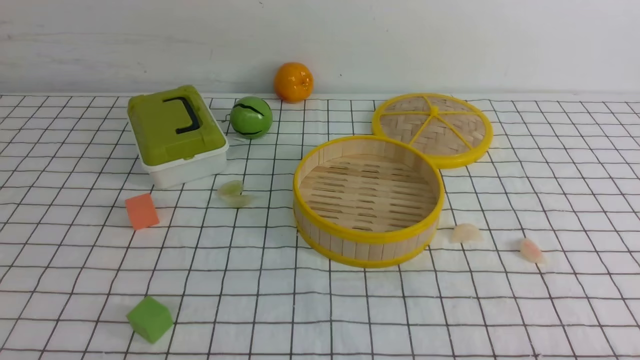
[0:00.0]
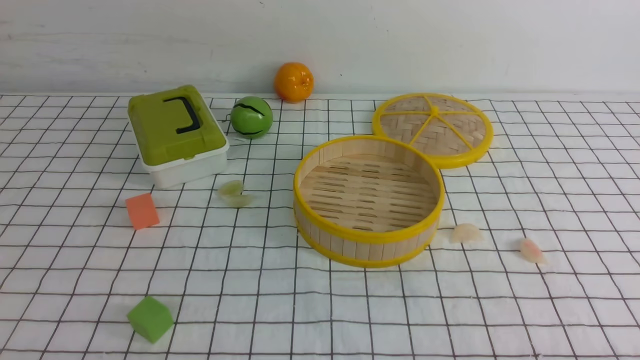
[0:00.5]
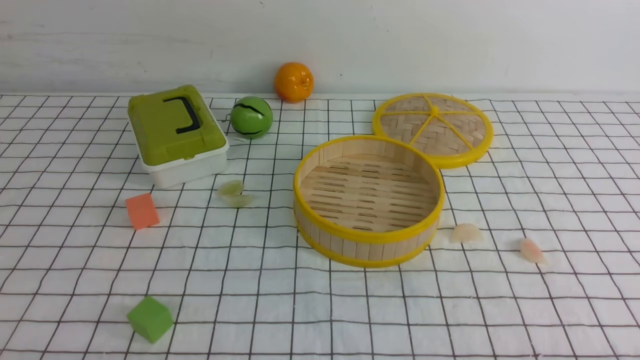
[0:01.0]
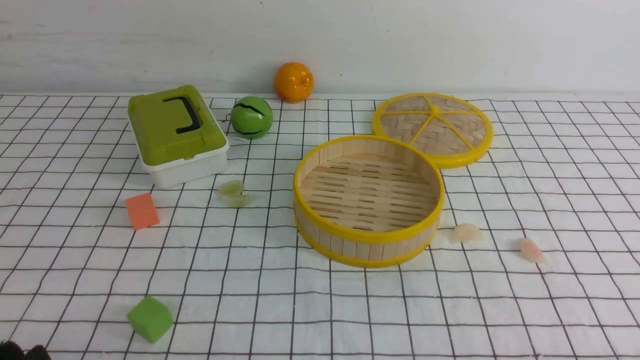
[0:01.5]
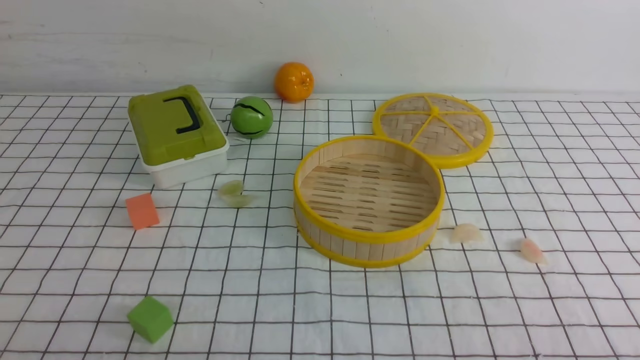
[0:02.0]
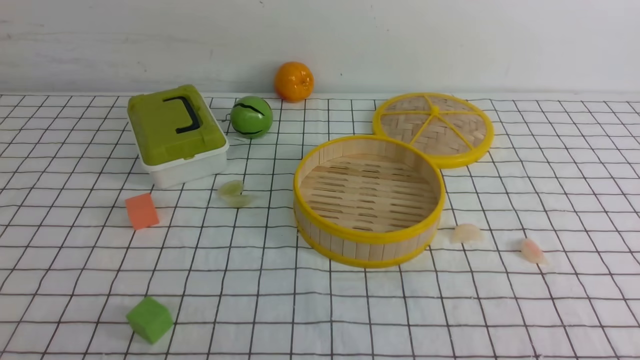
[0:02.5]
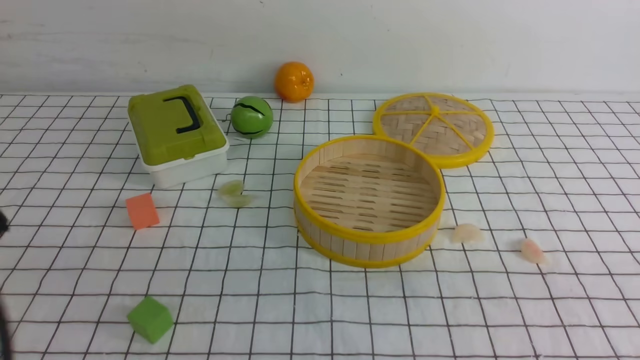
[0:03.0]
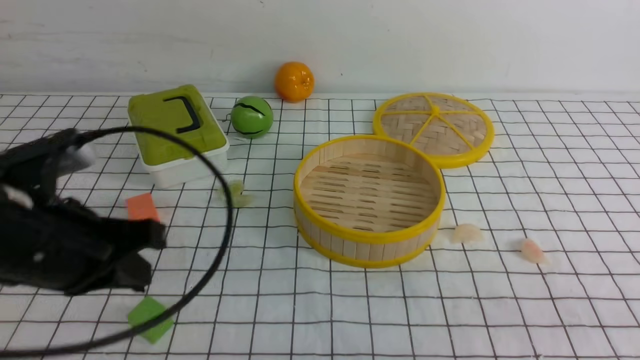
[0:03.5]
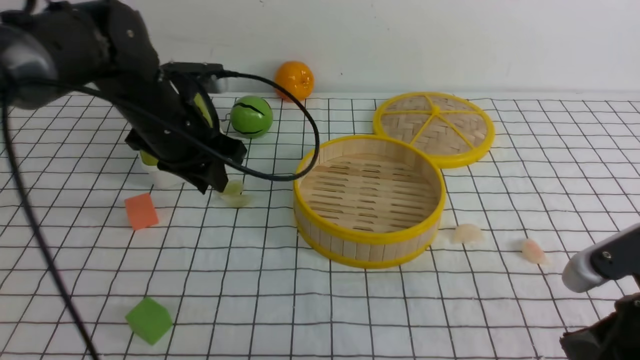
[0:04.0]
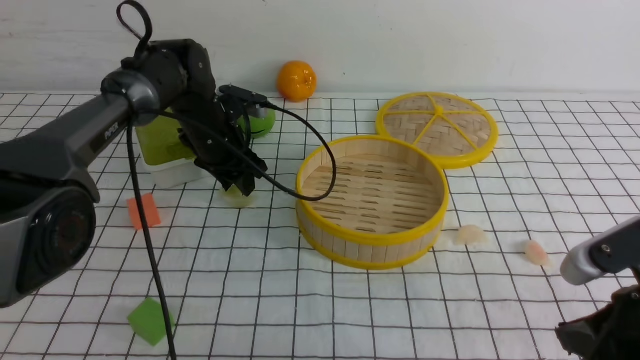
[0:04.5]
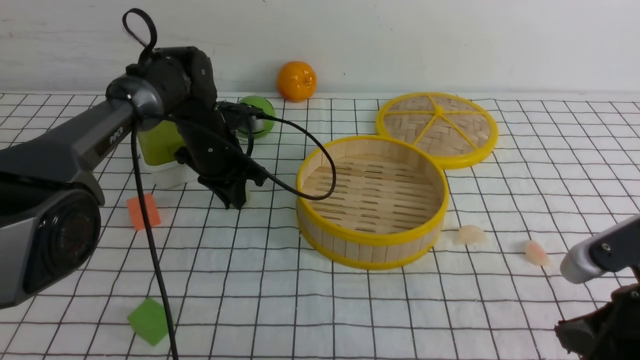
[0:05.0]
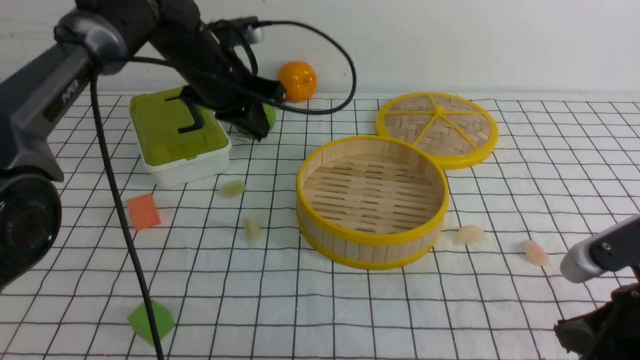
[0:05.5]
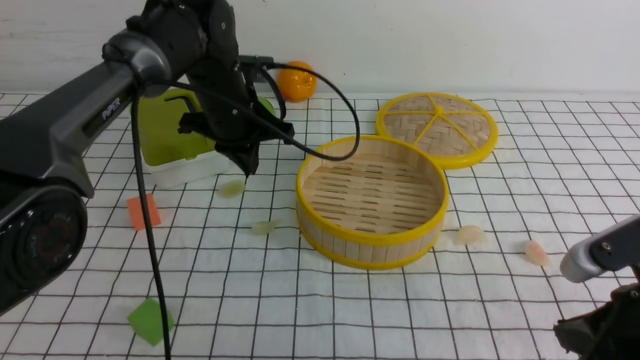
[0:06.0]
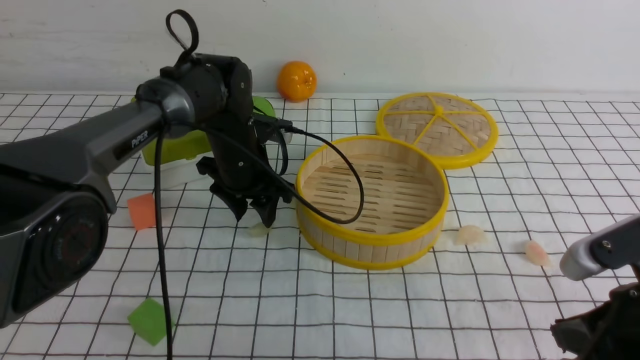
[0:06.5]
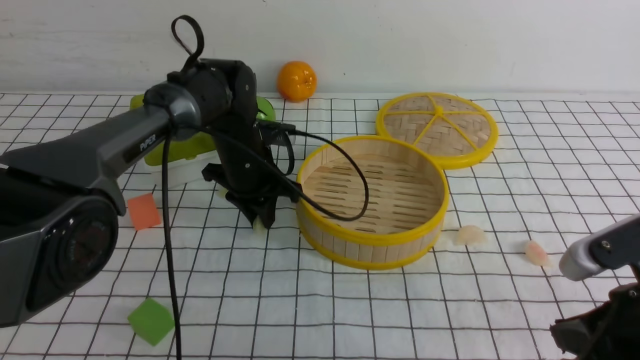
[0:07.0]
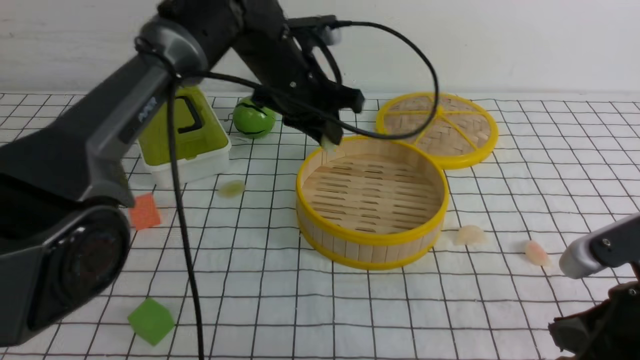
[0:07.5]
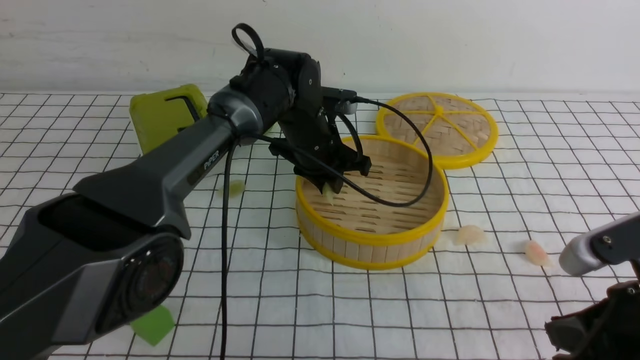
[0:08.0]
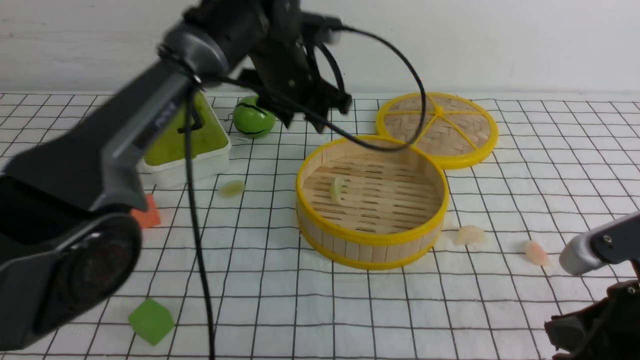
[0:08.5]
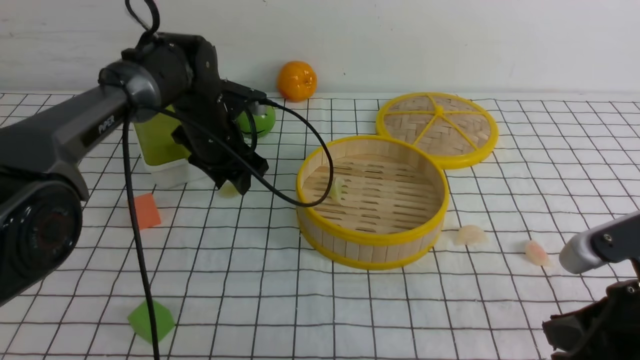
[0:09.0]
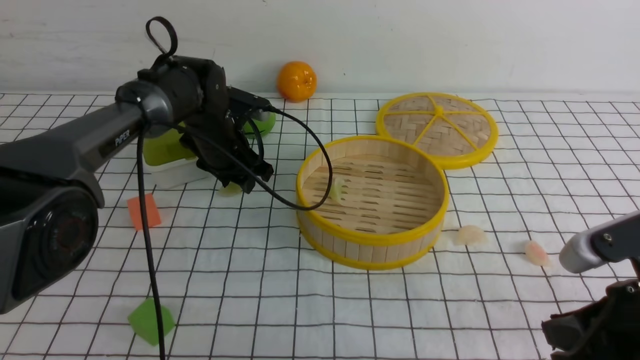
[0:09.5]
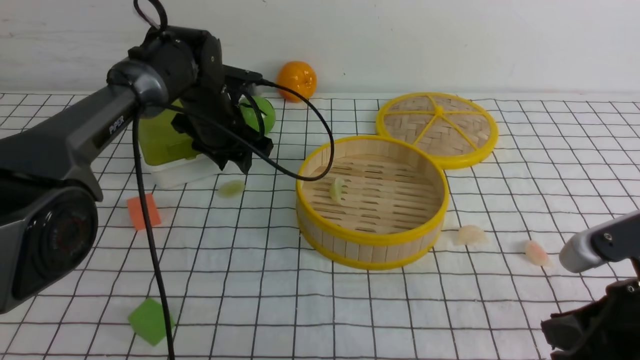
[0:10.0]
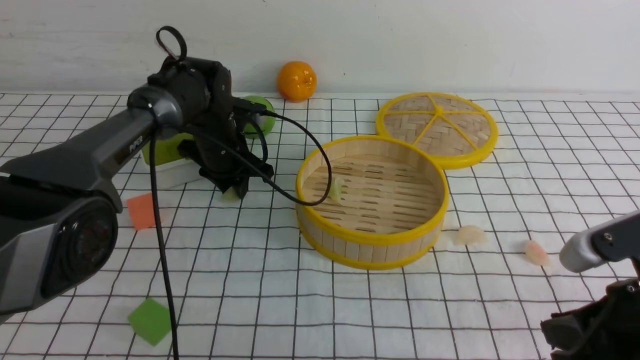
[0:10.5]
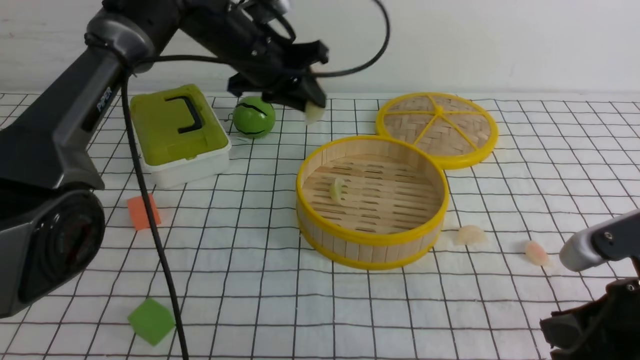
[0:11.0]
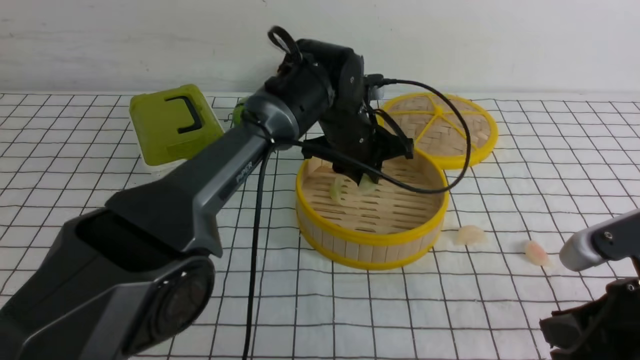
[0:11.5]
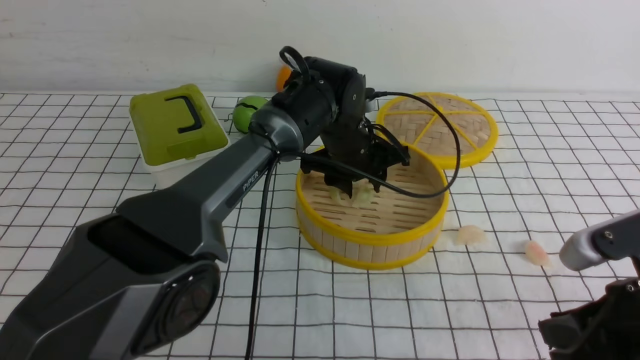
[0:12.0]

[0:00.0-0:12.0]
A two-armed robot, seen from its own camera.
Task of the whole recording: put the dumplings into the steamer on the table with the white tablecloth.
Step, 0.0 to 7.0 s: use the left arm to grab a dumpling.
Step, 7.5 to 8.5 s: use the left arm to put the dumpling into the steamer.
Step, 9.0 to 10.5 s: use the left arm to grab a dumpling.
0.0 to 2.0 s: The left gripper moves upward, some 5 cm.
2.0 to 4.0 s: The left gripper shifts some 35 cm forward, and closes and opens again. Meanwhile the right gripper moves forward, approximately 10 cm.
4.0 to 6.0 s: The left gripper shifts approximately 5 cm to the right, and moves some 10 cm downward and comes back.
6.0 to 8.0 s: The left gripper swings up and down, some 10 cm each way, with 2 reversals, and opens its fingers.
8.0 to 10.0 s: The left gripper is displaced to the left by about 10 cm.
10.0 to 12.0 s: The left gripper heads to the right, covering roughly 15 cm, and closes and opens again.

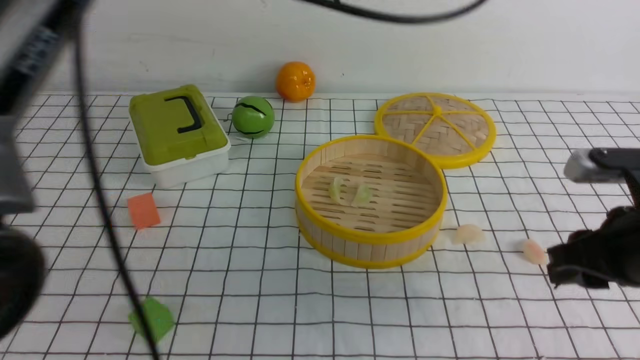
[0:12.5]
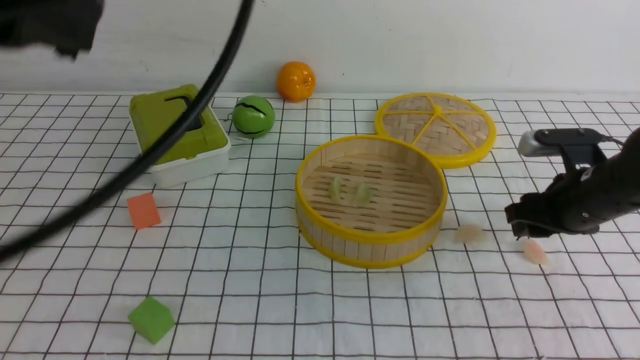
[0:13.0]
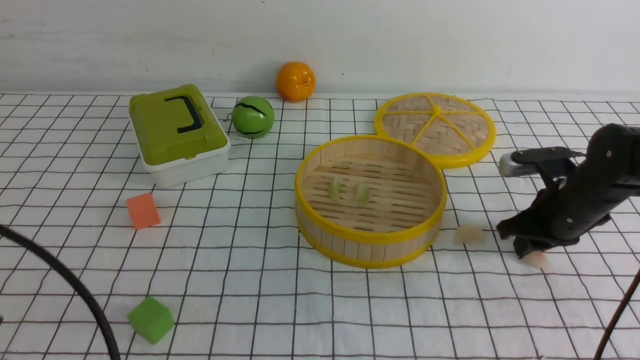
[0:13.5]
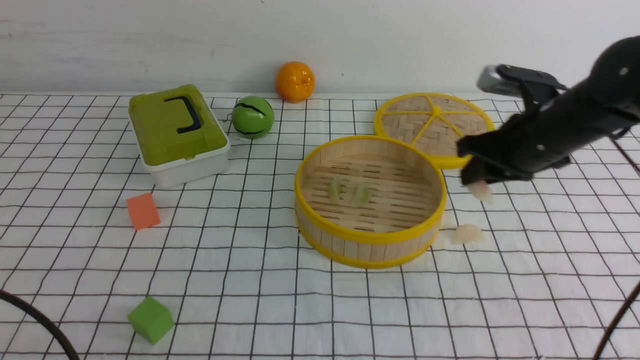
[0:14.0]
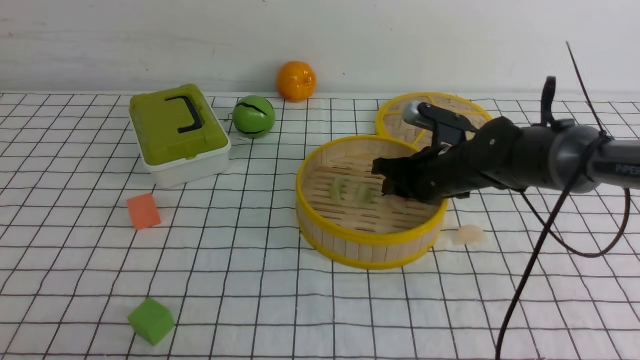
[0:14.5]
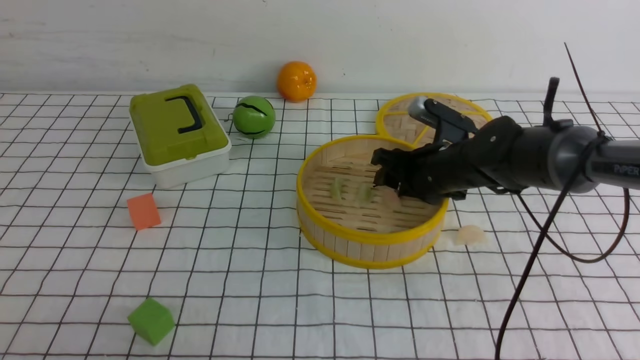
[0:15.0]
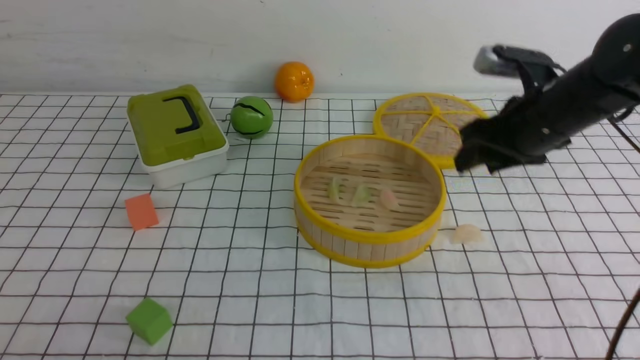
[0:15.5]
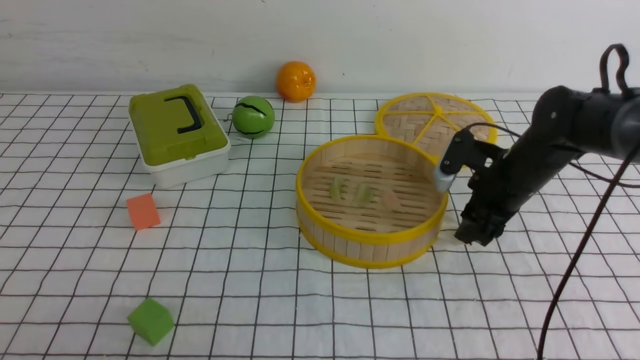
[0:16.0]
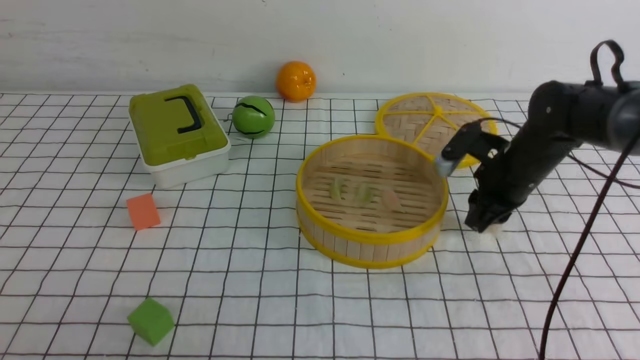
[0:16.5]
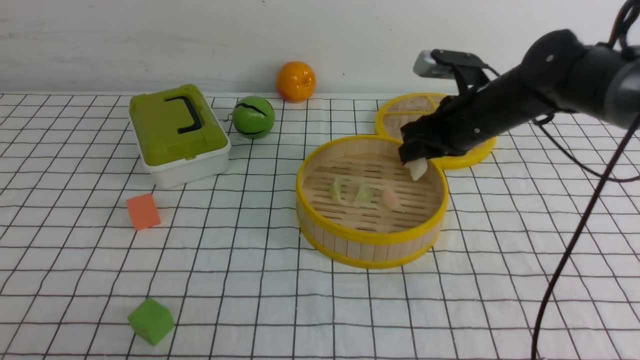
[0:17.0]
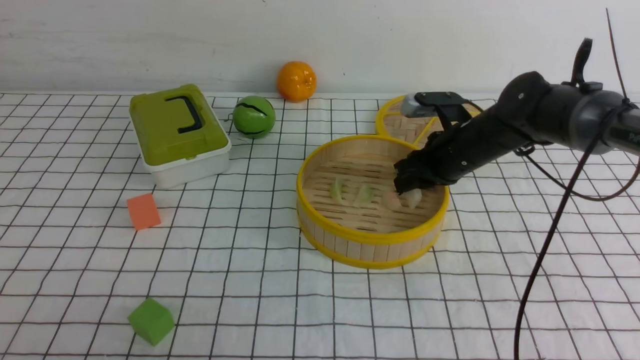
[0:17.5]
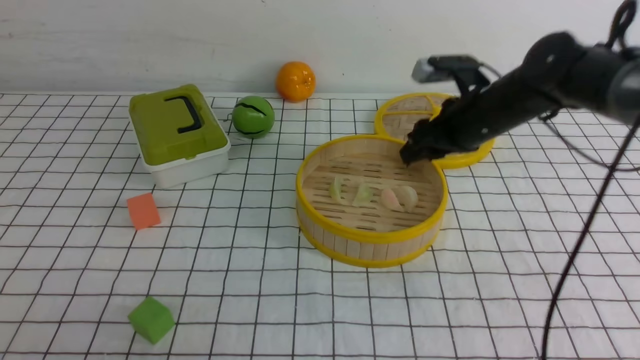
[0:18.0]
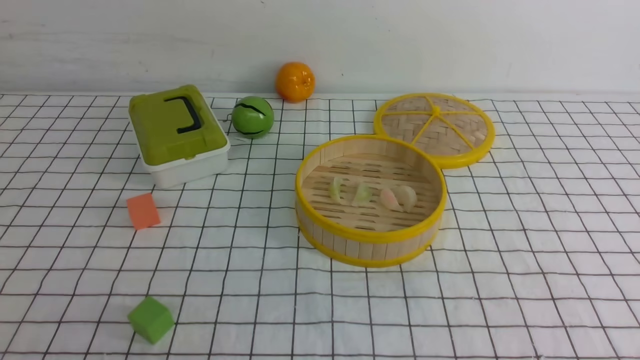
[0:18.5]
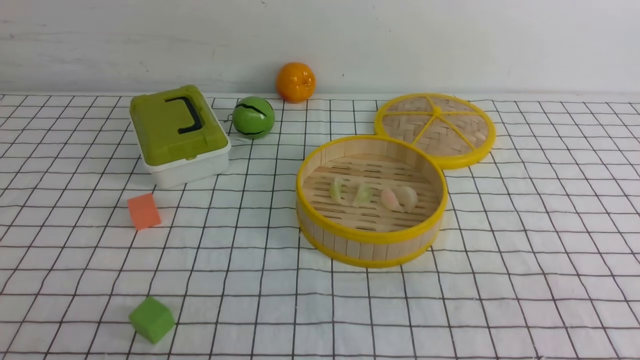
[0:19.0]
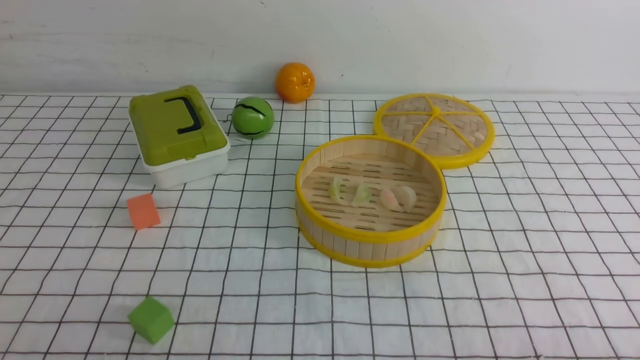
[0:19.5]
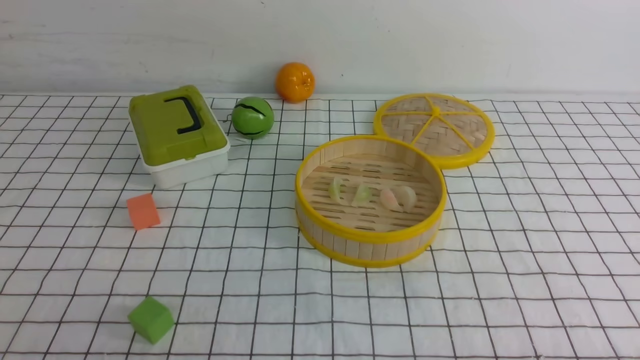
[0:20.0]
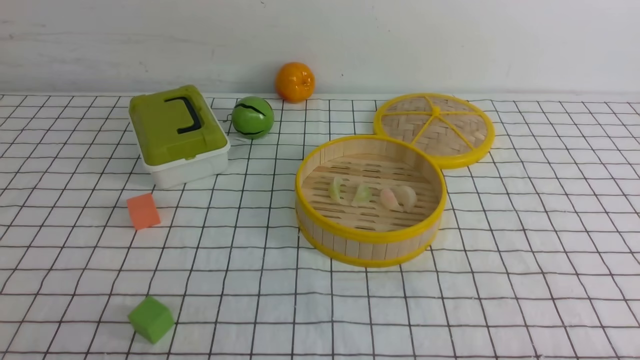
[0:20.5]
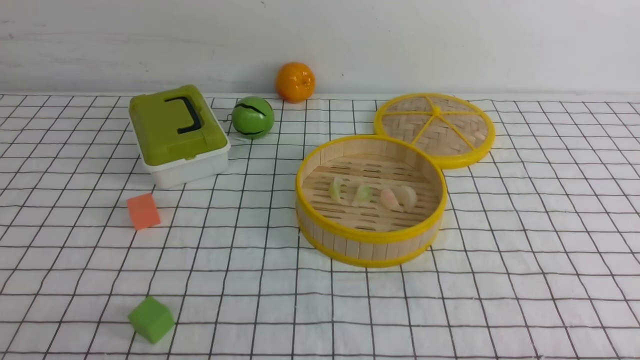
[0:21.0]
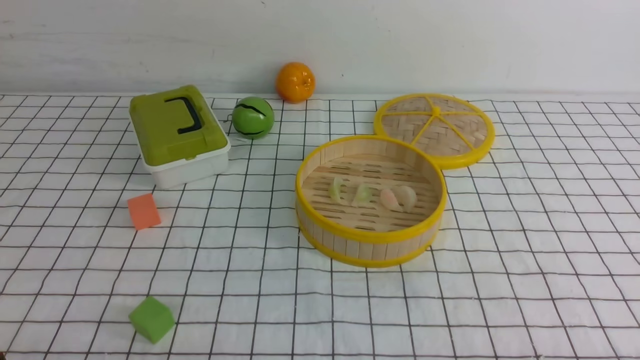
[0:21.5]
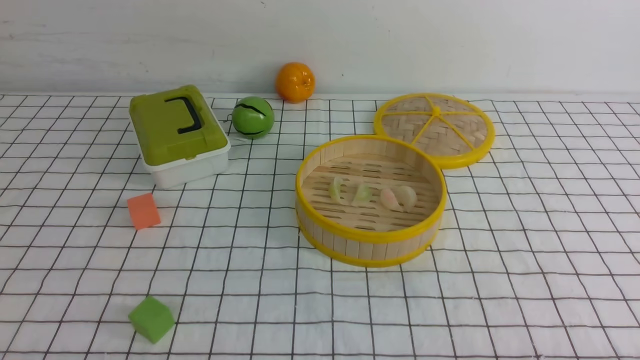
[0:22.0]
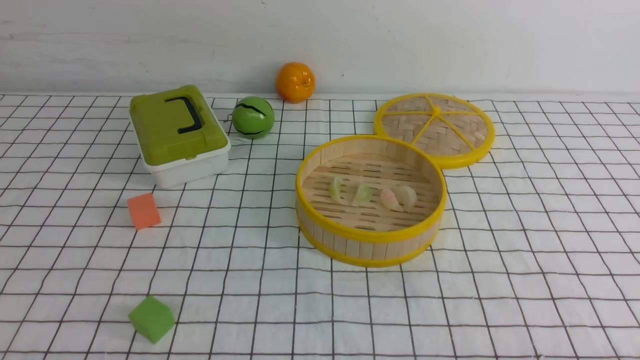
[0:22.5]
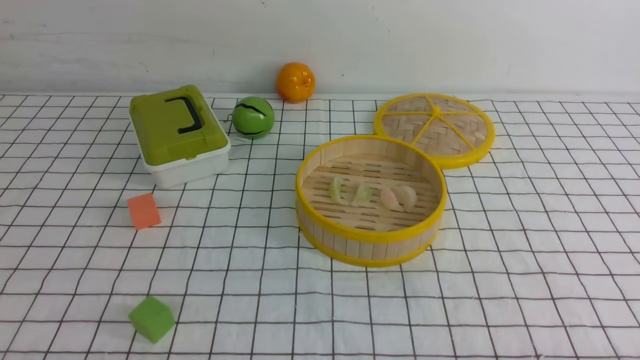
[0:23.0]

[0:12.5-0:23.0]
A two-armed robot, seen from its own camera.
Task of the whole recording: put the dumplings into the steamer on the table with the white tablecloth.
Step, 12.5 to 14.0 s: use the right arm to grab a dumpling.
Step, 14.5 to 15.0 s: use the right arm to put the dumpling into the steamer.
Step, 15.5 to 16.5 s: use the right arm to grab a dumpling.
Step, 17.0 to 18.0 s: use the right arm to put the dumpling into the steamer.
12.5 to 14.5 s: The left gripper heads backward, to the left and downward, covering roughly 40 cm. Meanwhile the right gripper travels forward and to the left by some 20 cm.
14.5 to 16.5 s: The right gripper goes about 10 cm to the right, and opens and closes again.
16.5 to 19.0 s: The right gripper heads backward, covering some 35 cm, and closes.
